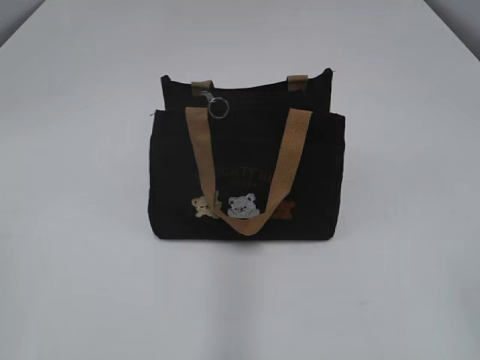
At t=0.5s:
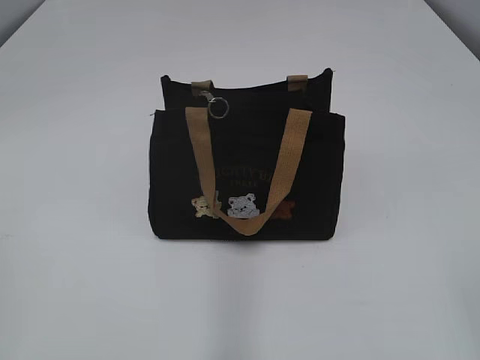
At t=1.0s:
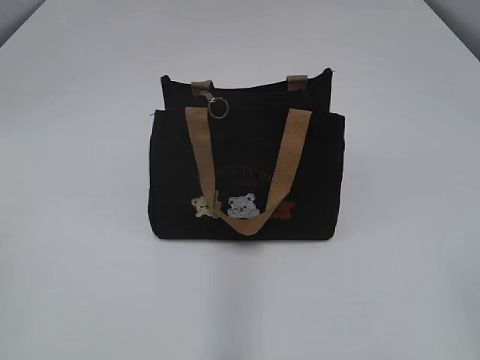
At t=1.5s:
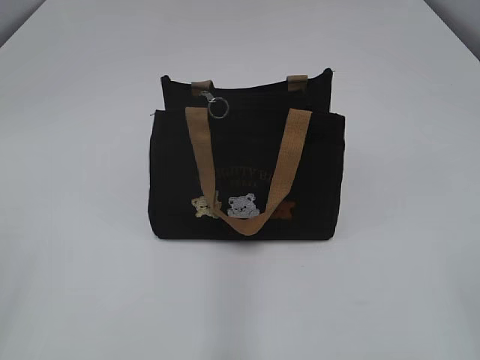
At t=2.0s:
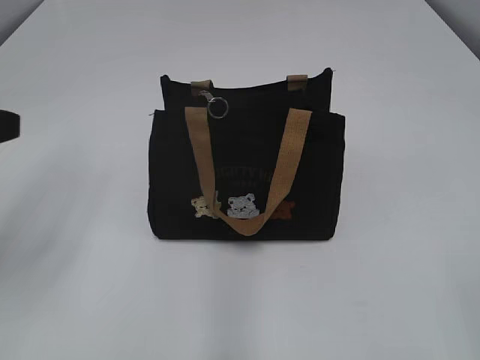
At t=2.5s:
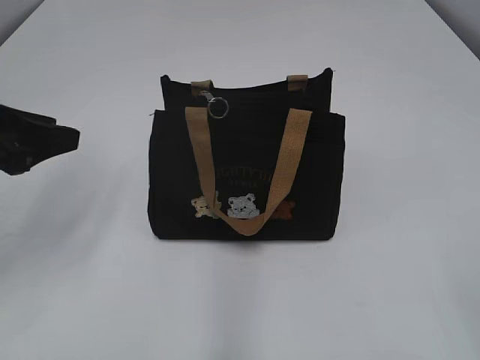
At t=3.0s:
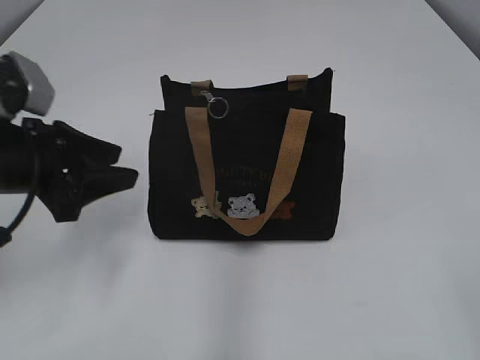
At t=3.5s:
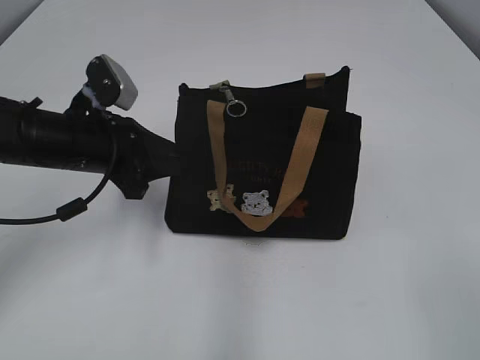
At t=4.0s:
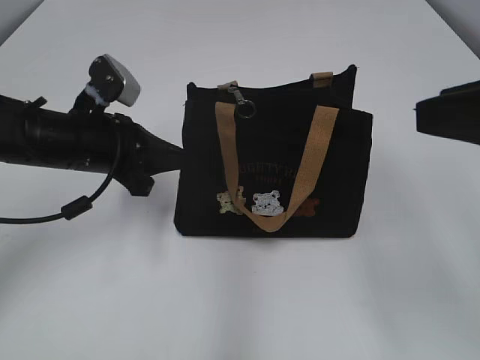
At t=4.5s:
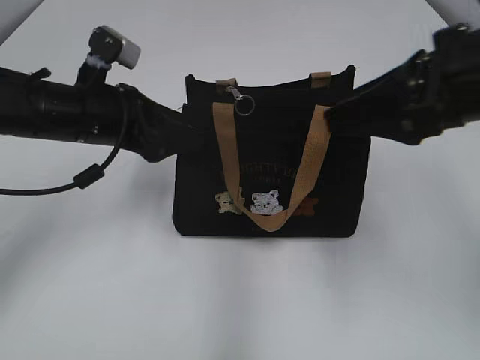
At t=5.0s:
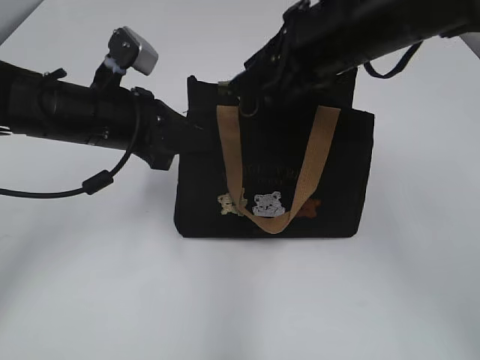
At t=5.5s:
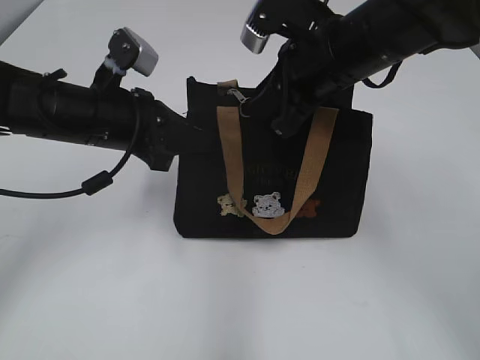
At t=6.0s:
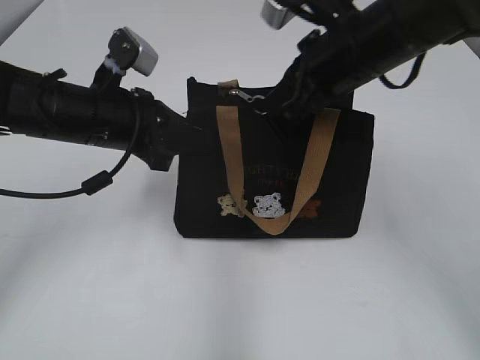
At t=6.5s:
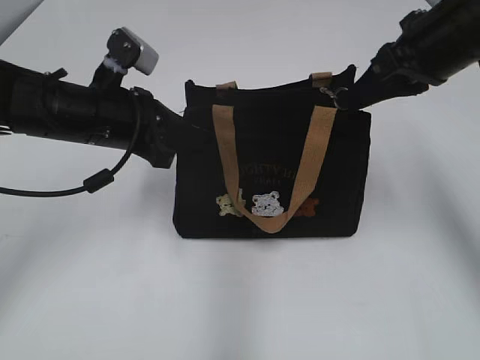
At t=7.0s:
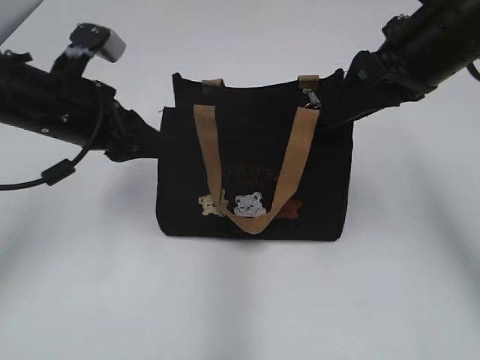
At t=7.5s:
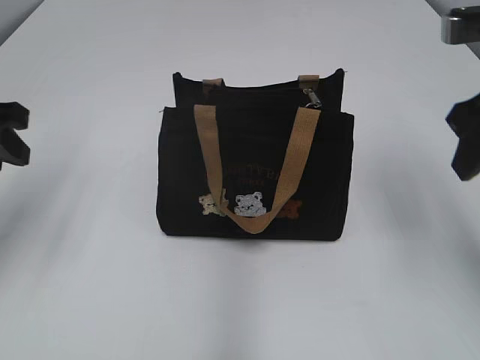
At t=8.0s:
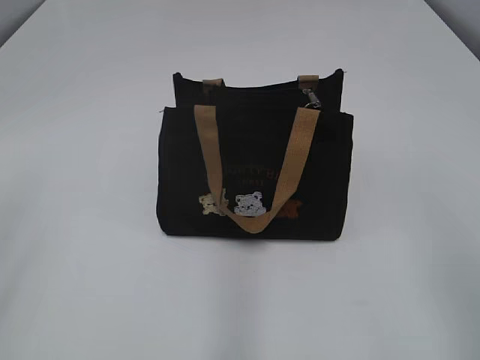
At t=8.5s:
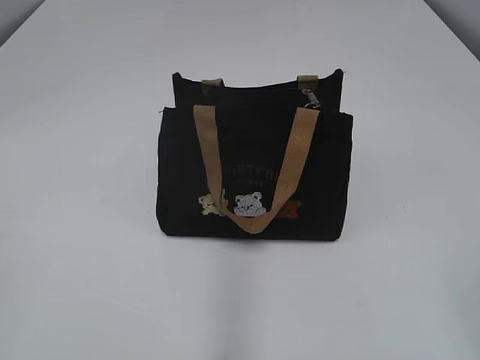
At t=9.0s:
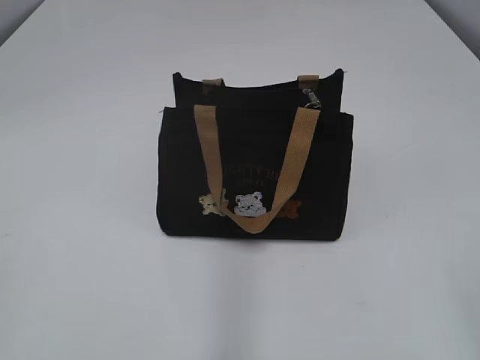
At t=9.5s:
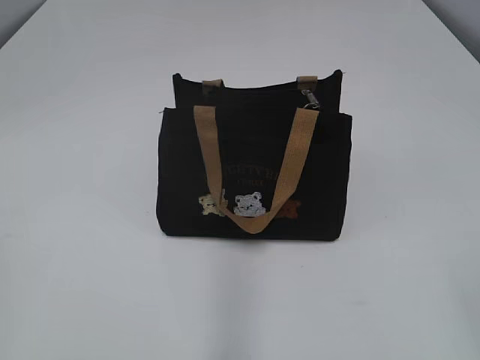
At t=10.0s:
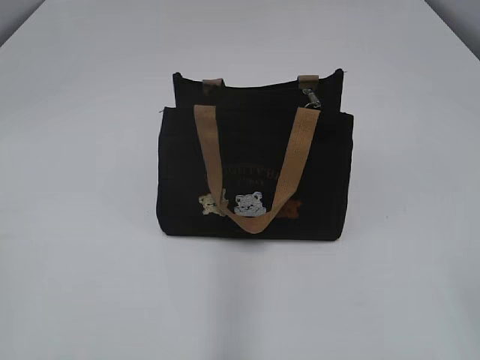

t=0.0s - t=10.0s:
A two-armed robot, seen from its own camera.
Step, t=0.0s - t=6.5s: Pull open the zipper with your right hand.
t=2.0s - t=4.0s: The right gripper moves forward, approximately 20 cm; the left gripper is displaced forward, downward and to the right by some 20 cm, and closes its fingers.
t=4.0s - t=6.0s: The right gripper shifts about 20 cm forward and to the left, and closes its fingers. Meanwhile the left gripper opens and closes again.
t=6.0s - t=8.0s: The left gripper moves backward, to the left and upward, roughly 30 cm, and opens its fingers. The right gripper moves backward and to the right, some 30 cm, and opens.

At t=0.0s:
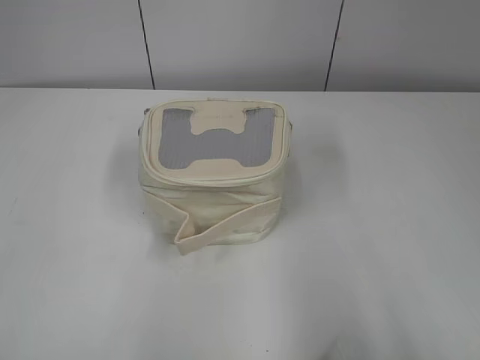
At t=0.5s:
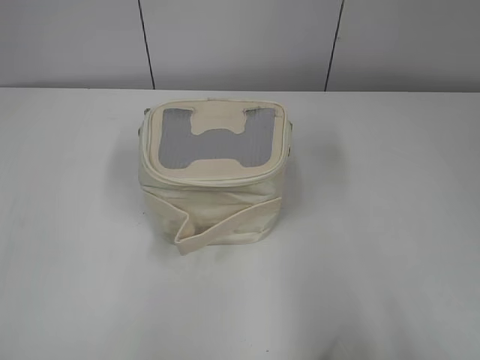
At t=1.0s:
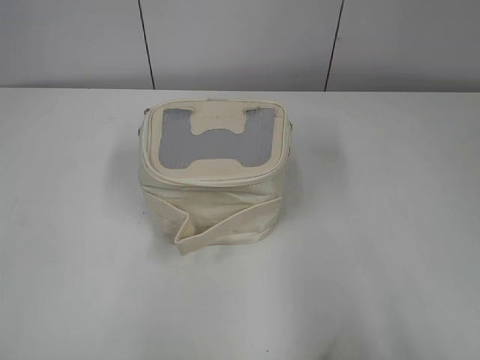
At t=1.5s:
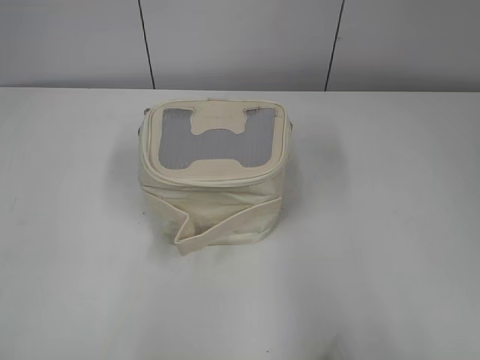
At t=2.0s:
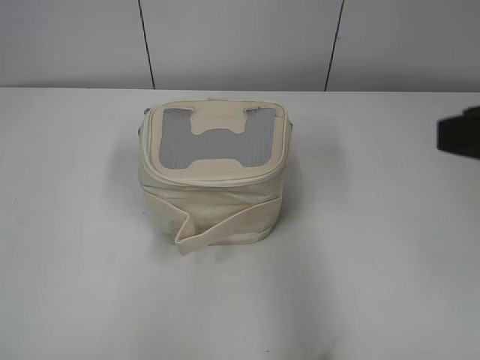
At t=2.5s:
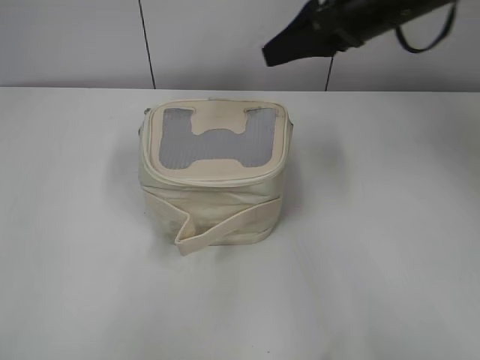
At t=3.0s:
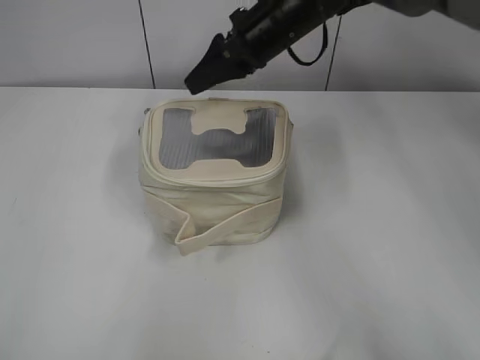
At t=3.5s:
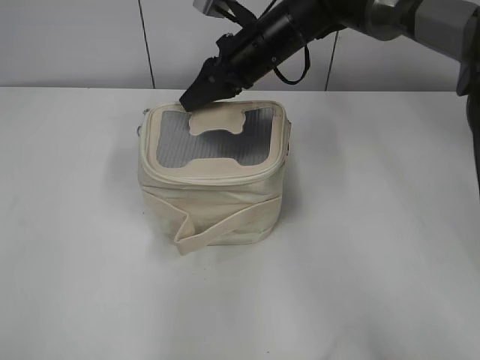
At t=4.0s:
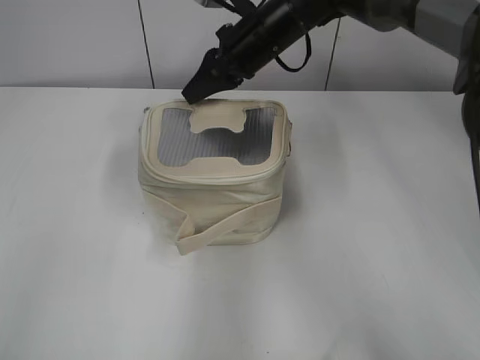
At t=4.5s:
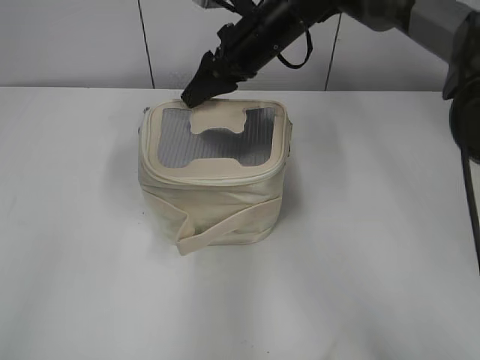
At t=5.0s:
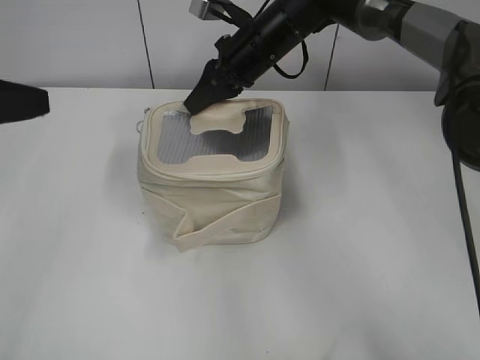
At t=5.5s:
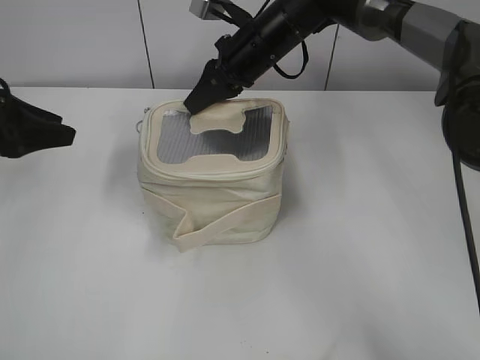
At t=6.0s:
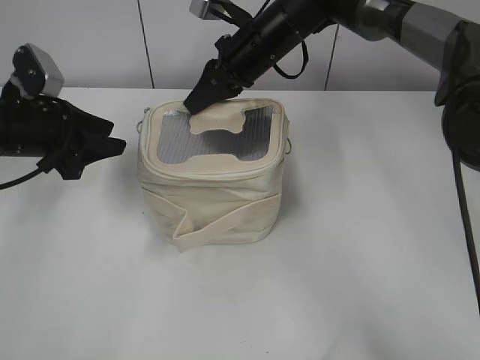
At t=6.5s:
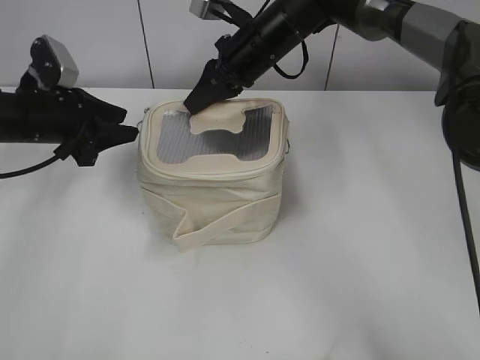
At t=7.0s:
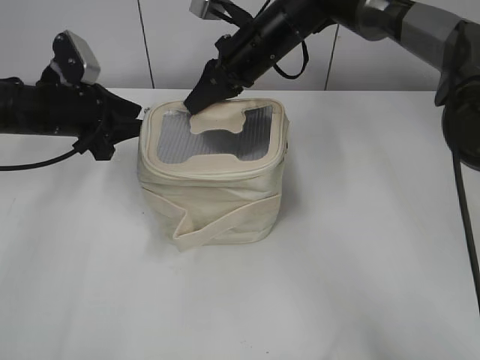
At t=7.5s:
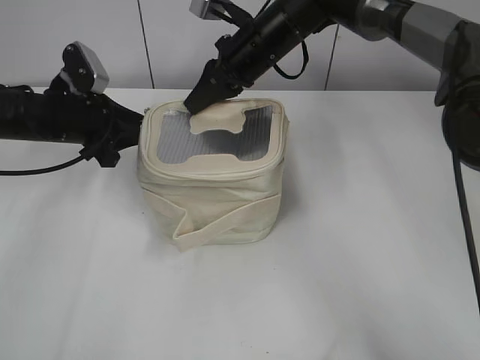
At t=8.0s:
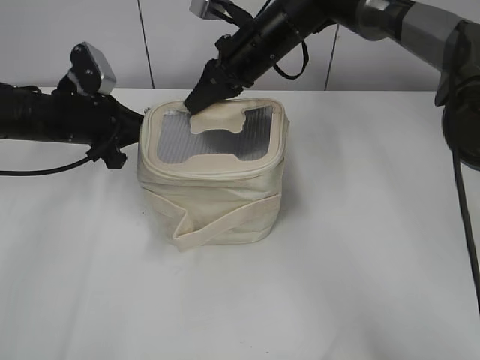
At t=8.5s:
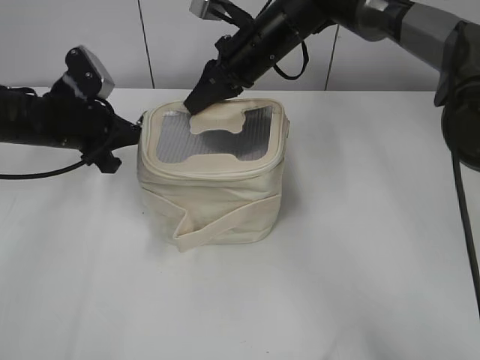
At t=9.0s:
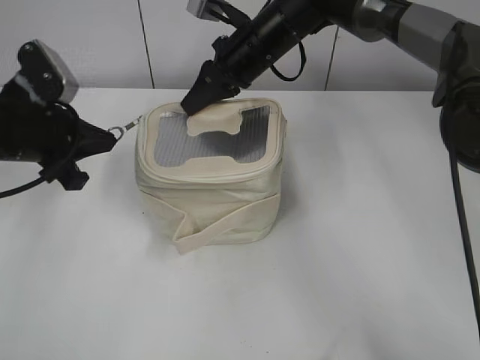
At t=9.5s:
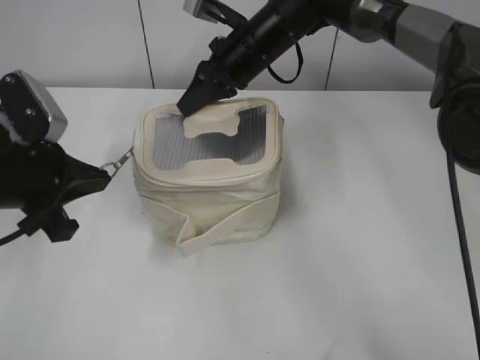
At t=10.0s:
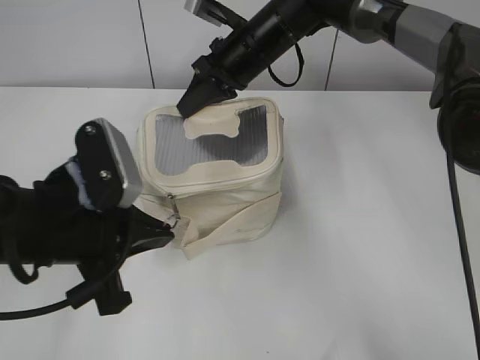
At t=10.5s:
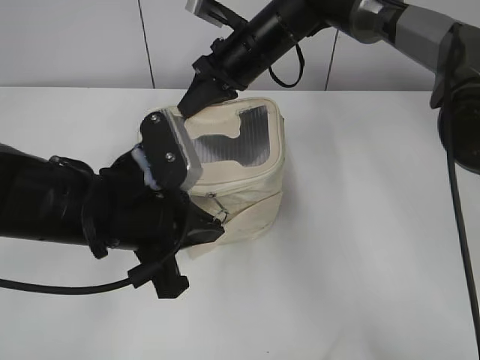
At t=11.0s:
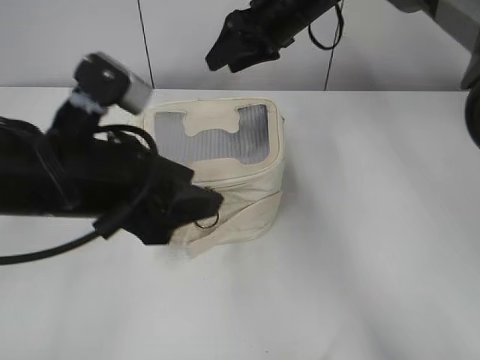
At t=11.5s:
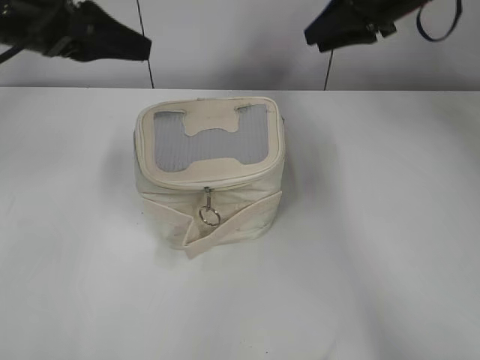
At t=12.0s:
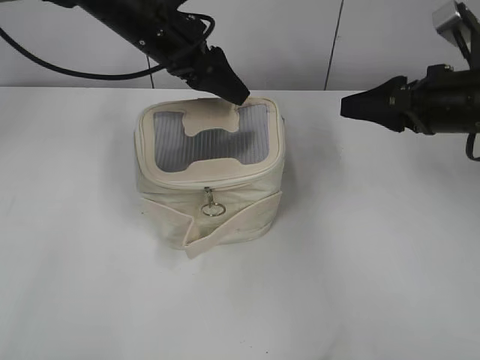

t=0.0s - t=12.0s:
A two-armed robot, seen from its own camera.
Step, t=0.0s - t=5.5s: Grasp the bag with right gripper.
Step, t=6.0s - t=11.0s: Pull the zipper with left gripper.
t=2.0s - t=4.0s: The left gripper heads forward, covering approximately 15 cm. Meanwhile the right gripper goes about 40 cm forward and to the left, and closes.
t=4.0s - t=6.0s: The left gripper is displaced forward and downward by approximately 25 cm, and opens up, while the right gripper opens, then closes again.
t=6.0s - t=8.0s: The left gripper shifts by about 5 cm, and closes up.
t=8.0s - t=10.0s: The left gripper heads backward, covering approximately 20 cm, and closes its fingers.
t=10.0s - t=12.0s: The right gripper is displaced to the right and backward by approximately 25 cm, and opens its fingers; the left gripper heads forward, covering about 25 cm, and opens its fingers.

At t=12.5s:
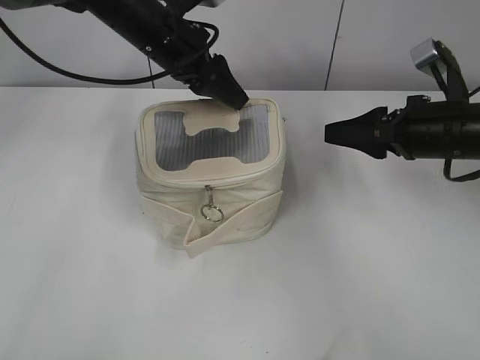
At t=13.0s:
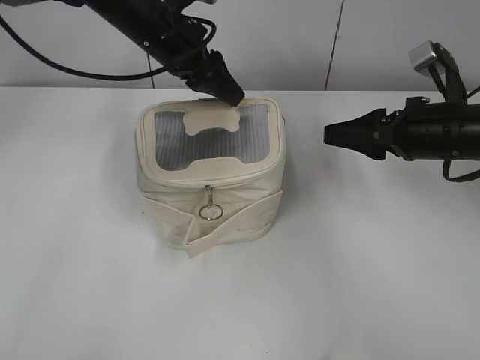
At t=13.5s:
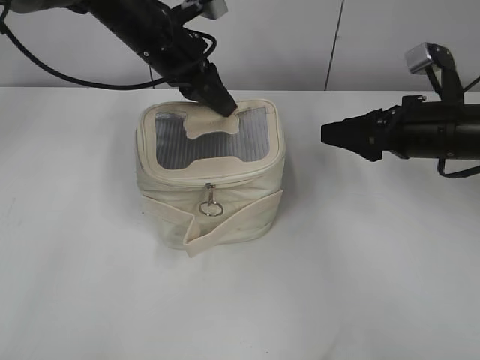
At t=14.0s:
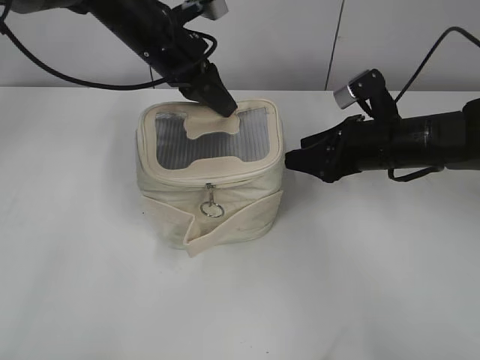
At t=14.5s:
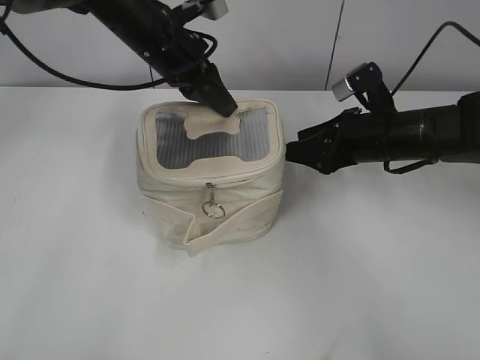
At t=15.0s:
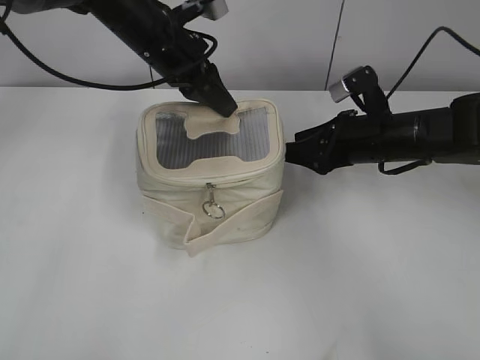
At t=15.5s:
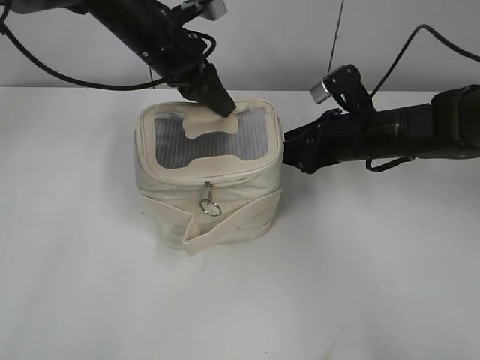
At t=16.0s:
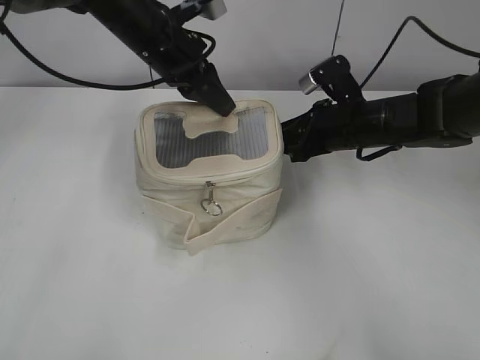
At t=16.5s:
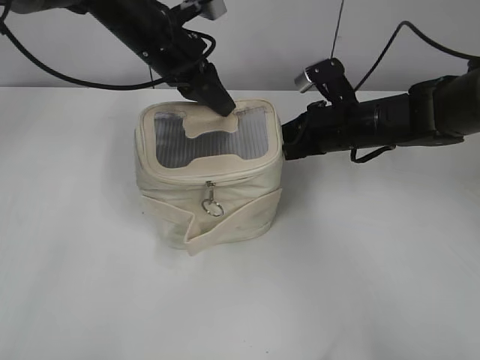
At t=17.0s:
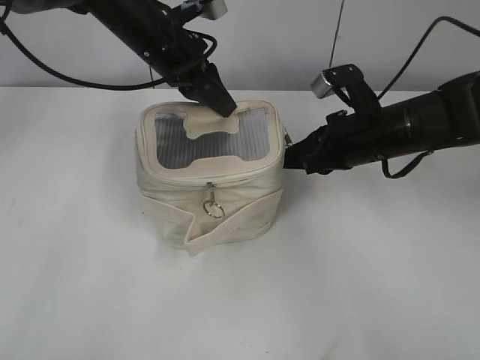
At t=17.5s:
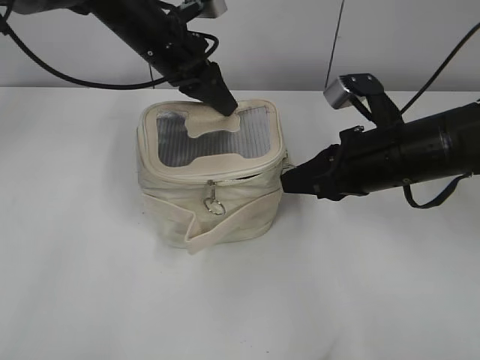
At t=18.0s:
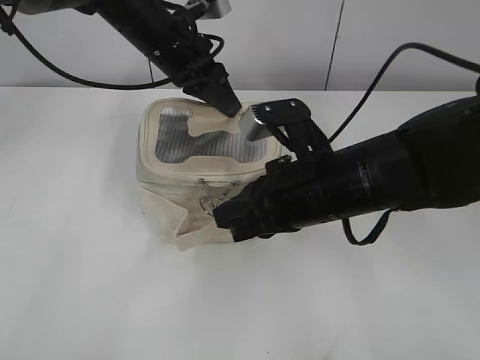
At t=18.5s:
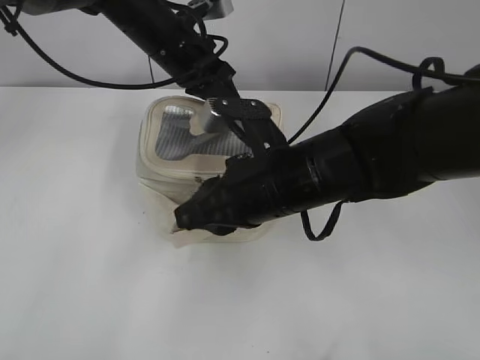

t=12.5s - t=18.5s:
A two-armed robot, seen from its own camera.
t=12.5s - t=14.5s: The left gripper closes up. Meanwhile the right gripper shifts by approximately 5 cm.
t=14.5s - t=16.5s: The right gripper shifts by approximately 5 cm, and closes its fingers.
t=16.5s - t=18.5s: The right gripper travels backward and to the left by approximately 15 cm.
